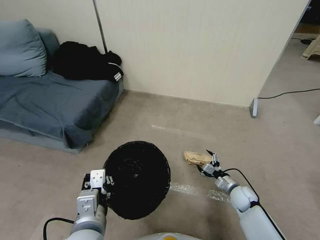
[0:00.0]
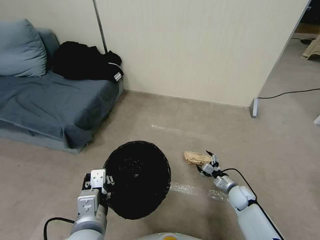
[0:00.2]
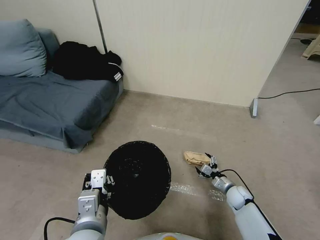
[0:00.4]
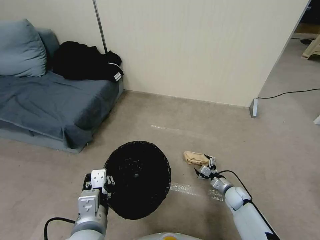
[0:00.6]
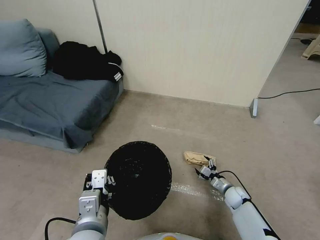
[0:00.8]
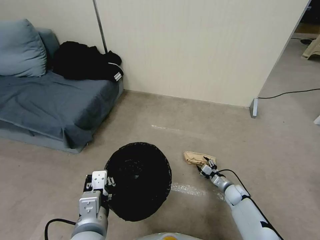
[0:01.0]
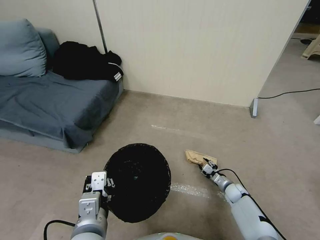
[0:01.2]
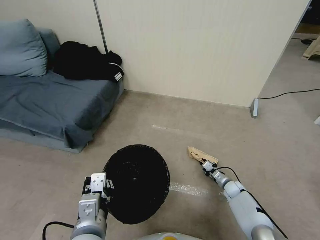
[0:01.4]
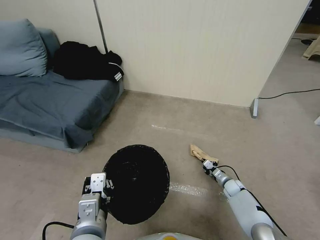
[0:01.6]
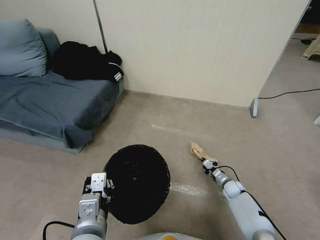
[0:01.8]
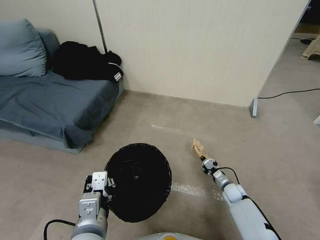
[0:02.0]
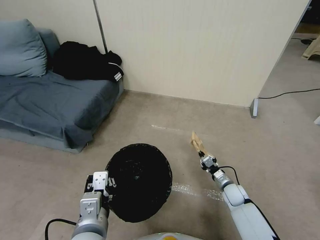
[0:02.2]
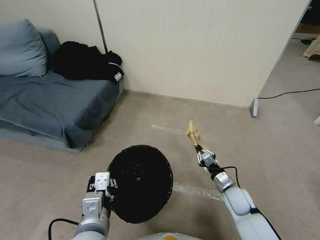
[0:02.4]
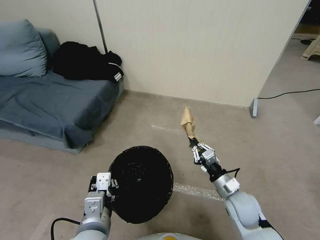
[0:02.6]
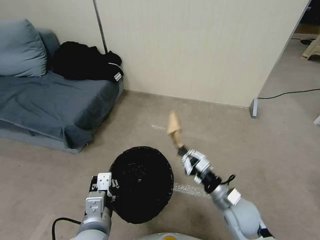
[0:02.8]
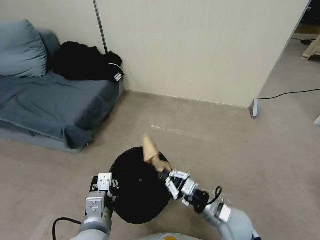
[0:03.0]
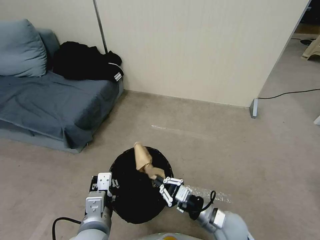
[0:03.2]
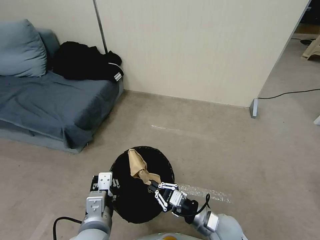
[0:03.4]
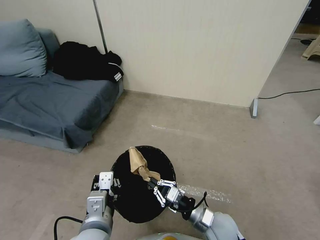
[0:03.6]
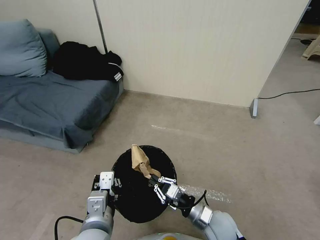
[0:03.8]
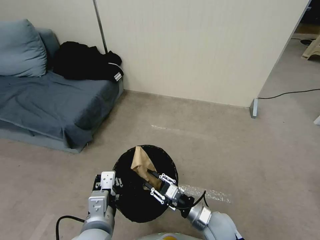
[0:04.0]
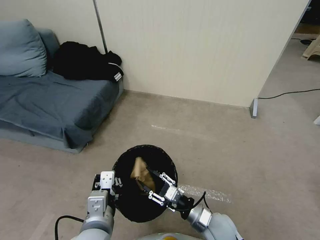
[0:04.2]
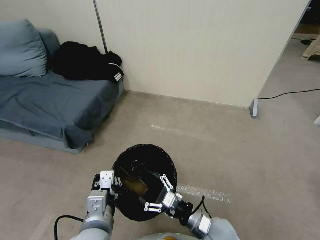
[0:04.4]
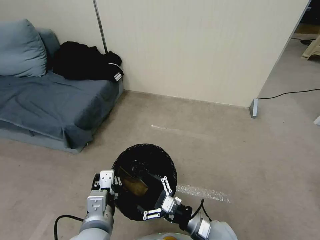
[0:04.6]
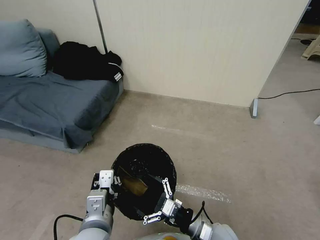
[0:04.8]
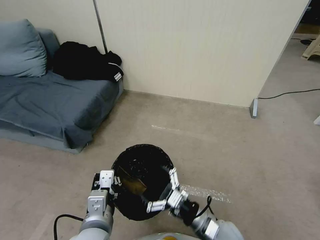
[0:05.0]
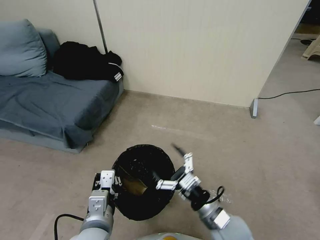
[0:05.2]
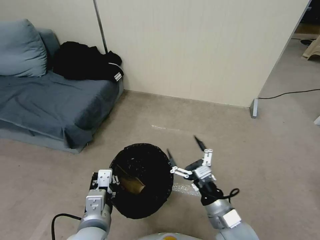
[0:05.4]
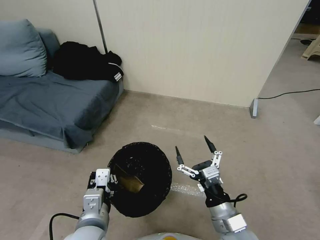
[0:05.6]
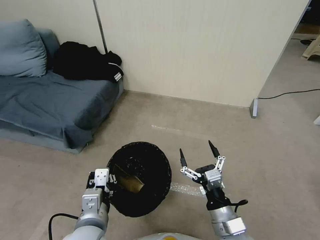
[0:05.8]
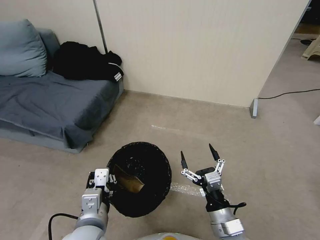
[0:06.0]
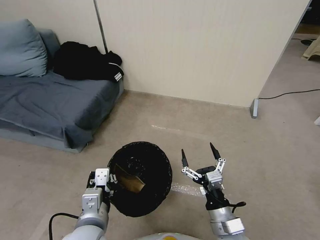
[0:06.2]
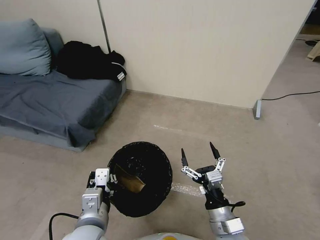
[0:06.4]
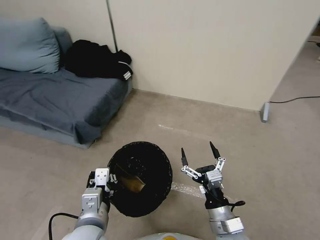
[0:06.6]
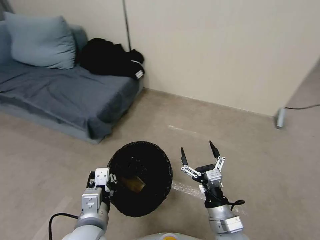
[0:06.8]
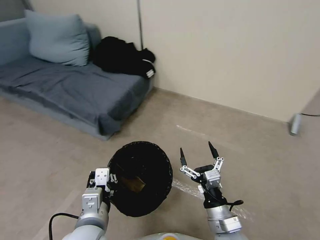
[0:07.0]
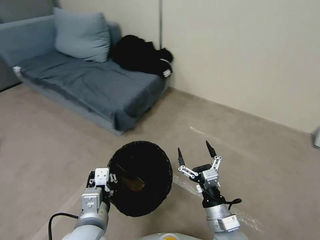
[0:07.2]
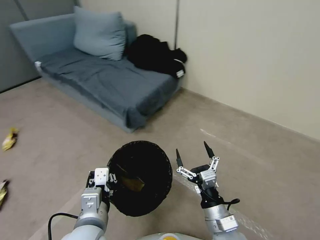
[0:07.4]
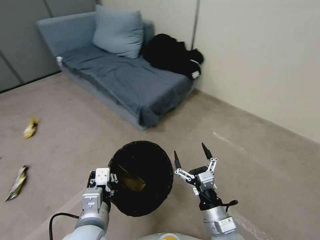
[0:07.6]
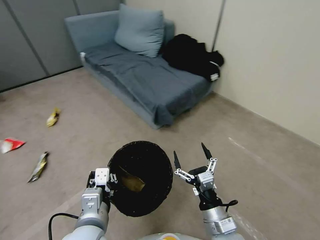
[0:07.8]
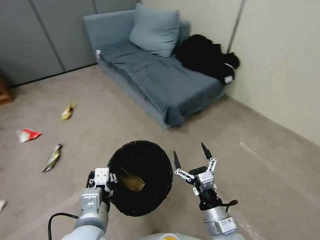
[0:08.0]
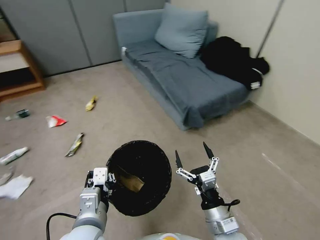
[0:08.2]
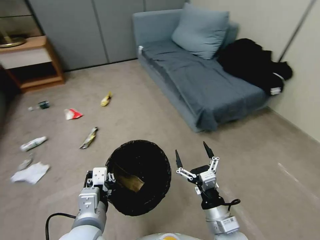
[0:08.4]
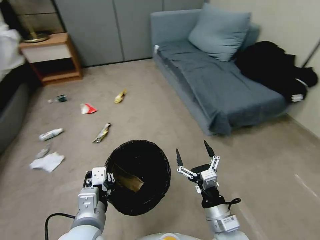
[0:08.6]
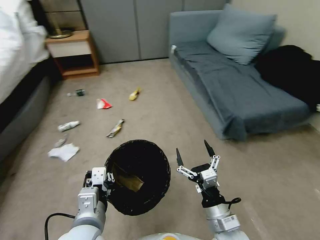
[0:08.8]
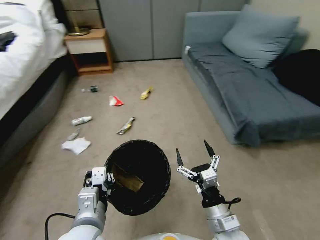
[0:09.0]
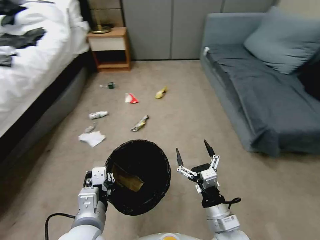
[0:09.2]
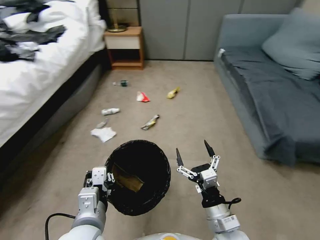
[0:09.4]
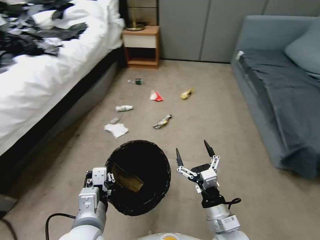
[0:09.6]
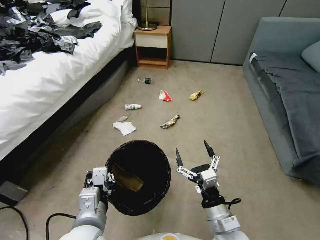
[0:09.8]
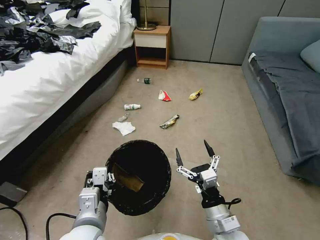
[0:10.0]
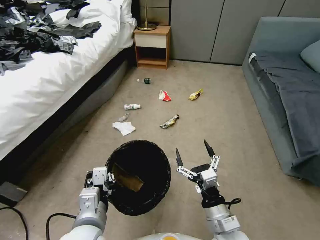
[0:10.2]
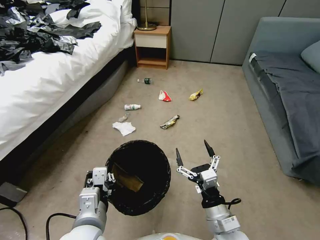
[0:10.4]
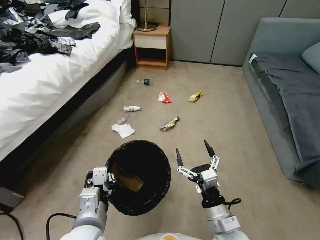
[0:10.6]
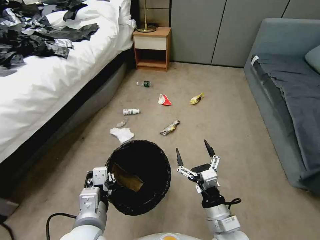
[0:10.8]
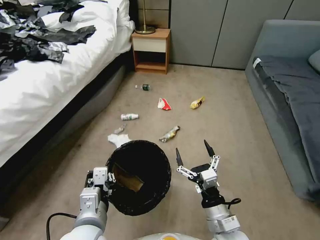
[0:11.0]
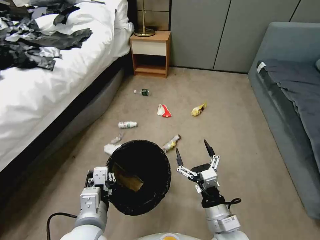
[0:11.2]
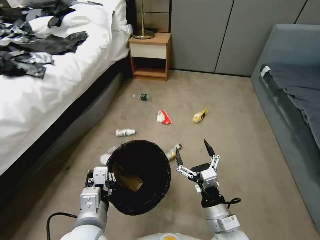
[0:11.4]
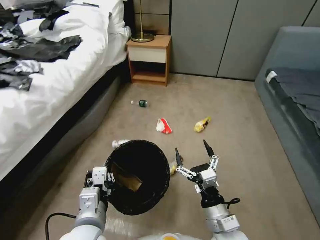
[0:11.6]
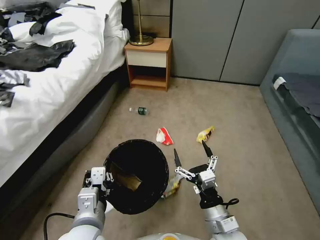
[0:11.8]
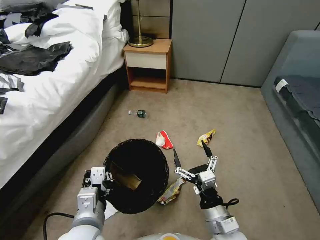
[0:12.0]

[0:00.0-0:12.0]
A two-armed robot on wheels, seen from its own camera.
Task of the whole recording: Pick up the trash bin, then pick up the garbage from the floor and place it into the trash bin.
0:00.0 to 0:01.6: The right gripper shifts roughly 10 cm downward and forward, and closes.
0:01.6 to 0:03.0: The right gripper heads upward, backward and to the left, covering roughly 30 cm.
0:03.0 to 0:04.4: The right gripper shifts by about 5 cm, and opens its fingers.
0:04.4 to 0:06.0: The right gripper moves upward, about 5 cm.

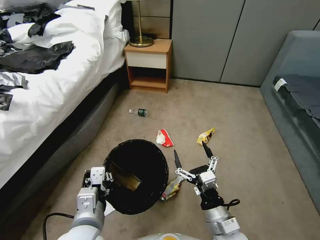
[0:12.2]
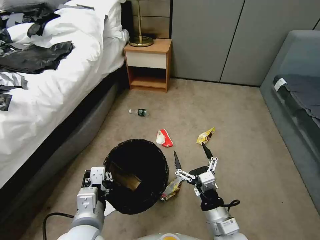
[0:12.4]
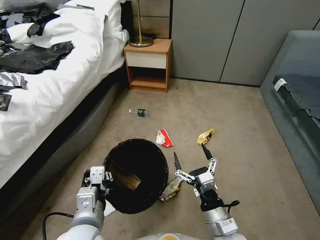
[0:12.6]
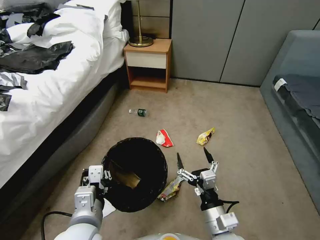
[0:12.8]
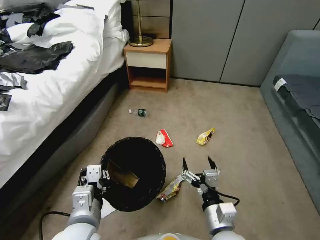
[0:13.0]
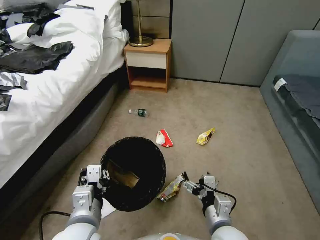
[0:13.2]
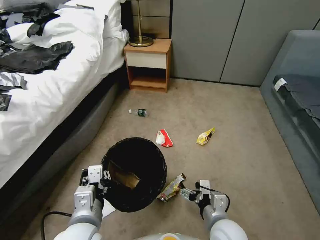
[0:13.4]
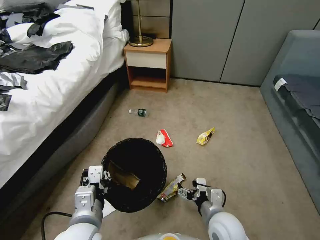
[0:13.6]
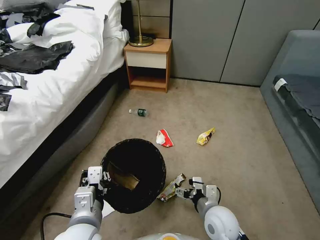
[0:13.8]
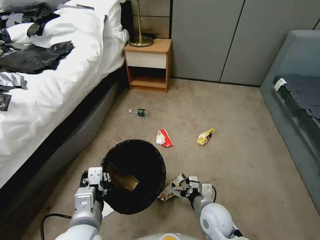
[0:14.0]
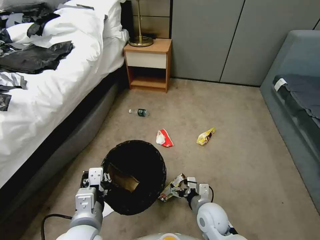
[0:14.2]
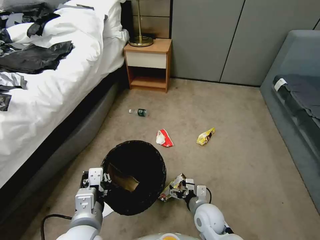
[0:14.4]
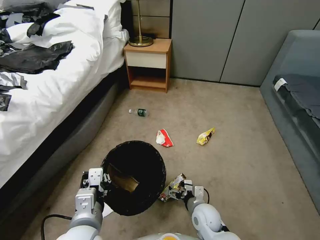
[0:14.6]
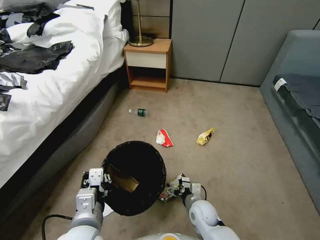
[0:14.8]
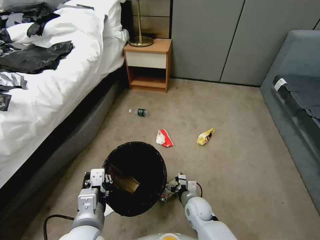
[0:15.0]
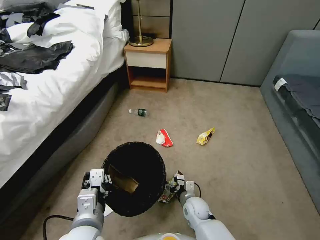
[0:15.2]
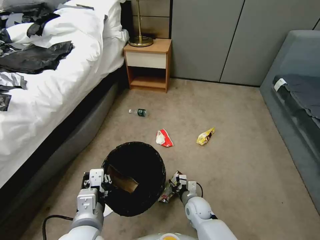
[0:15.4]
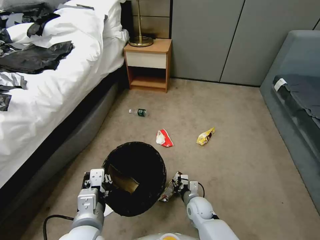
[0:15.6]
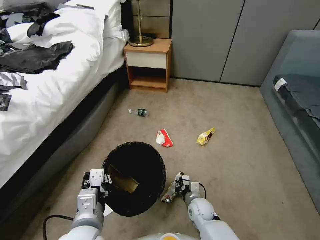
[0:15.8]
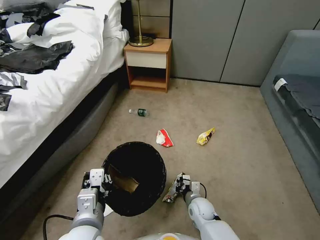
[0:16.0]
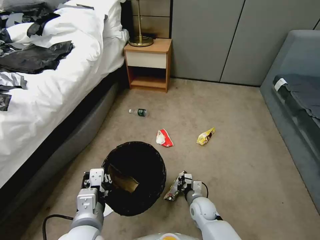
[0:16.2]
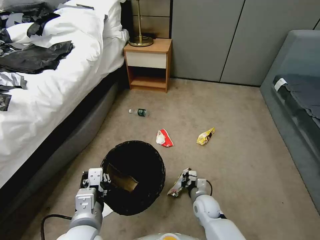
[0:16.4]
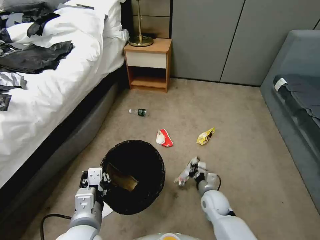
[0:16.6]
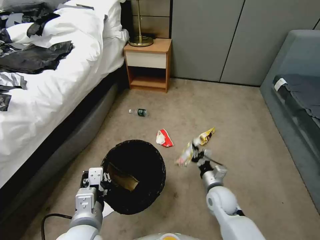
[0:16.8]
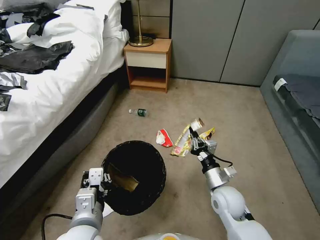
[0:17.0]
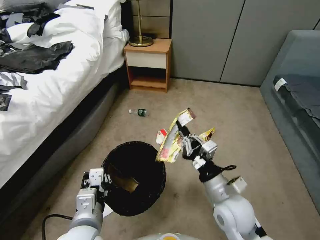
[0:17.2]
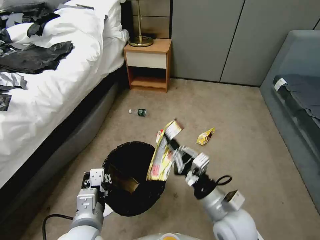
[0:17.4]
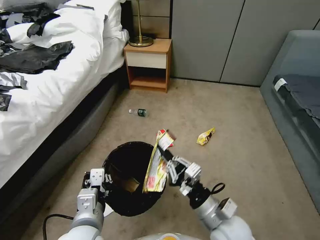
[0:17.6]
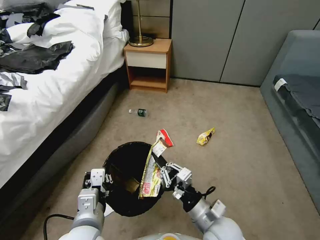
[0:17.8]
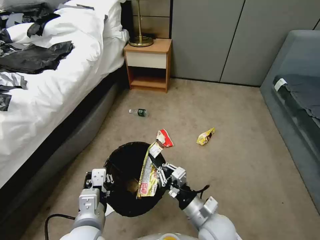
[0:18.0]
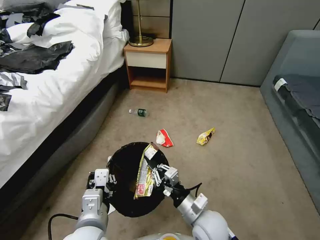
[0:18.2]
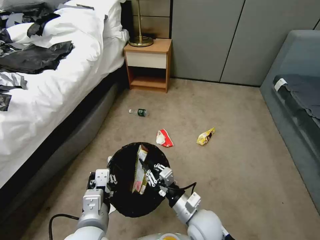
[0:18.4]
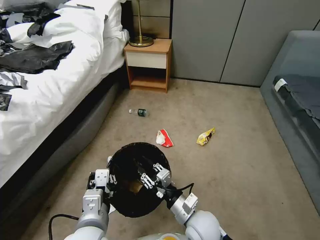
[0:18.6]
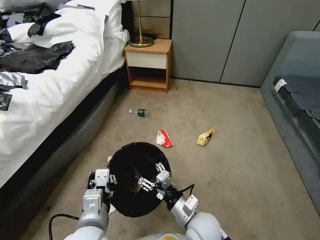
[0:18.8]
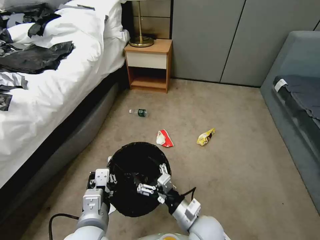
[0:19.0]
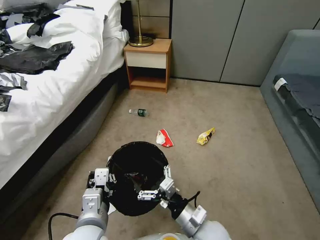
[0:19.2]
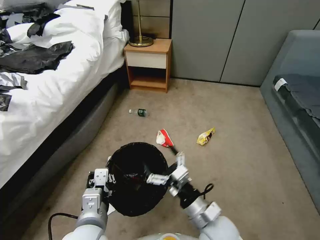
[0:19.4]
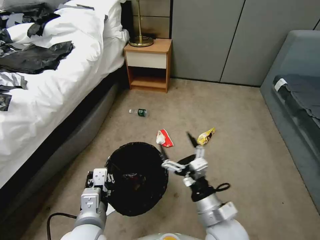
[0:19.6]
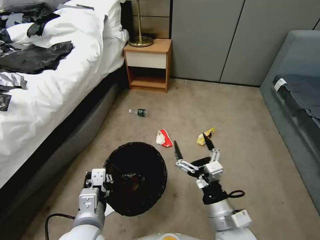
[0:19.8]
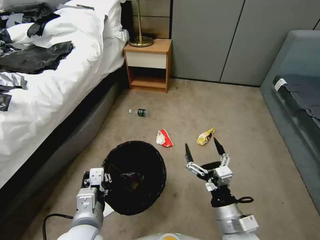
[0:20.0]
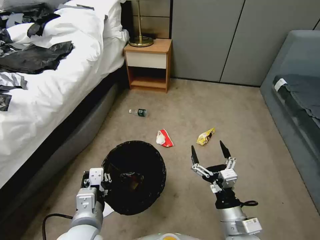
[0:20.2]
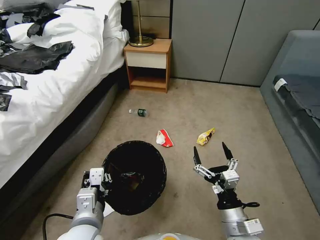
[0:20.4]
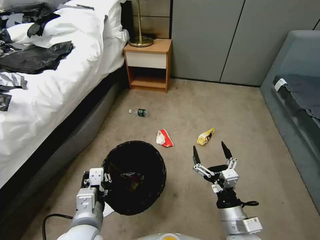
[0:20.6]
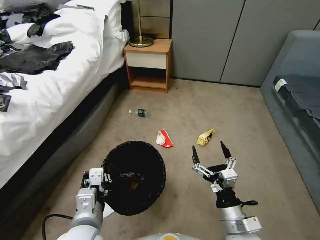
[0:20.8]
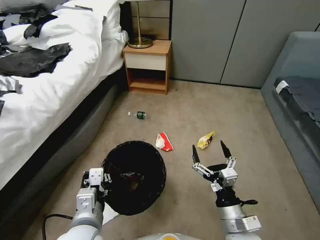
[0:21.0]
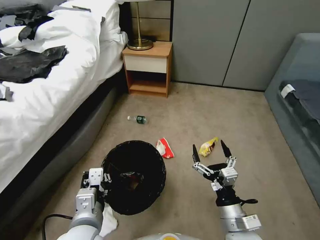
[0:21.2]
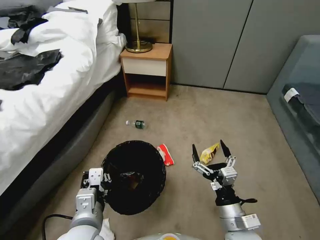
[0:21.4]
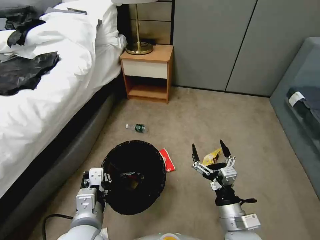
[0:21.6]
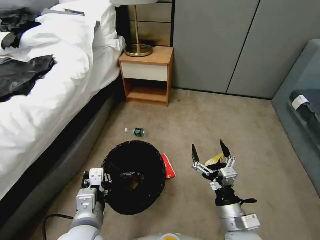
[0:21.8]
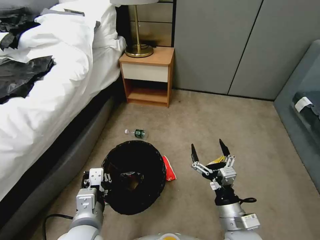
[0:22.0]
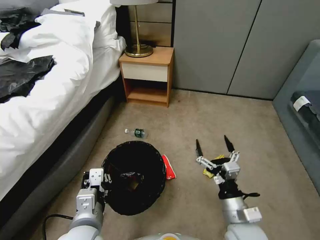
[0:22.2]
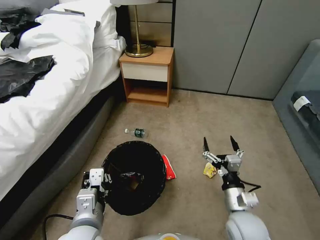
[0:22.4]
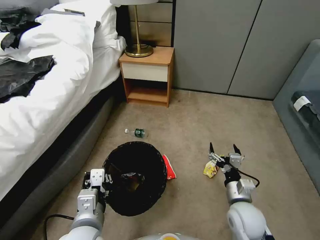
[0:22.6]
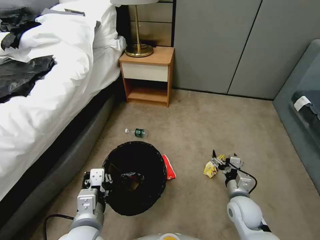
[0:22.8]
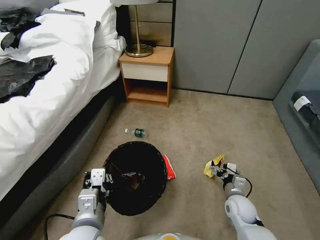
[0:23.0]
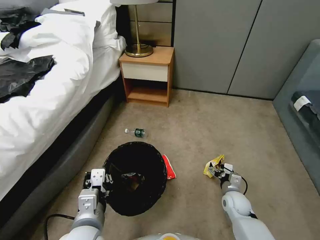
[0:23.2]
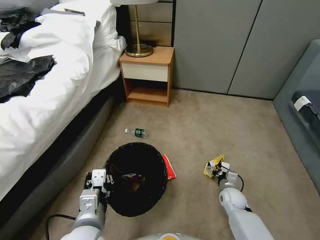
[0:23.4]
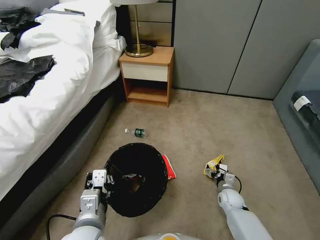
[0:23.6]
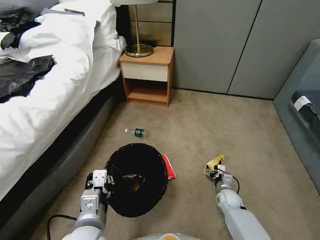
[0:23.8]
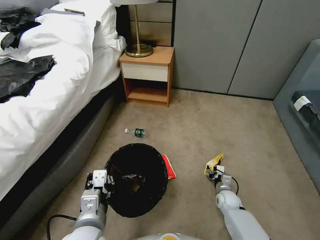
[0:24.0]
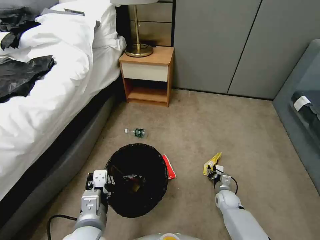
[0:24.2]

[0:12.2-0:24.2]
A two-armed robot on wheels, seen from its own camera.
Task of the whole recording: Pick up the trash bin, then pick up the garbage from the floor and place it into the trash bin.
0:12.2 to 0:13.8: The right gripper goes some 5 cm forward.
0:13.8 to 0:15.2: The right gripper is displaced downward and forward by about 15 cm.
0:15.2 to 0:16.6: The right gripper moves to the right, approximately 5 cm, and closes its fingers.
0:16.6 to 0:18.2: The right gripper is displaced upward, backward and to the left by roughly 15 cm.
0:18.2 to 0:19.8: The right gripper moves upward, roughly 5 cm, and opens its fingers.
0:19.8 to 0:21.2: The right gripper ends up roughly 5 cm from where it was.
0:21.2 to 0:22.6: The right gripper shifts some 5 cm forward.
0:22.6 to 0:24.2: The right gripper moves downward and forward, approximately 25 cm, and closes up.
